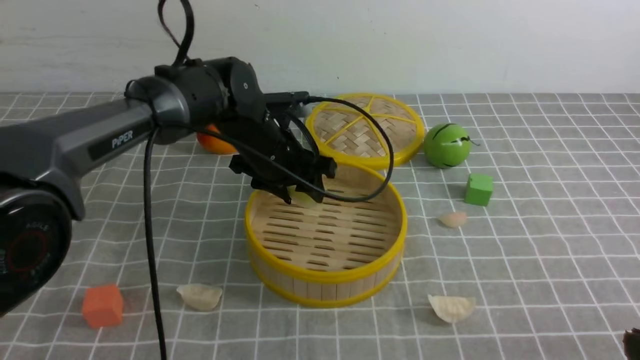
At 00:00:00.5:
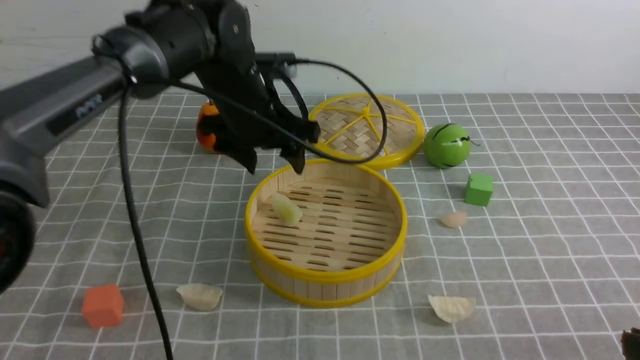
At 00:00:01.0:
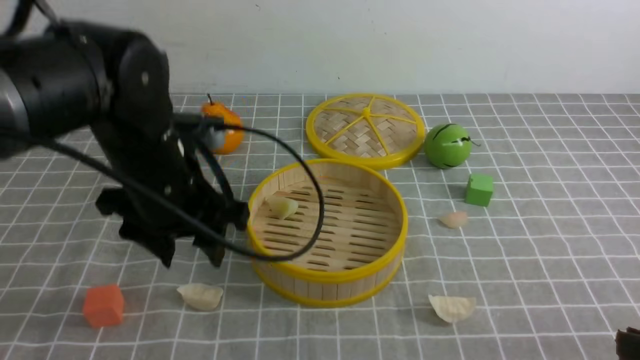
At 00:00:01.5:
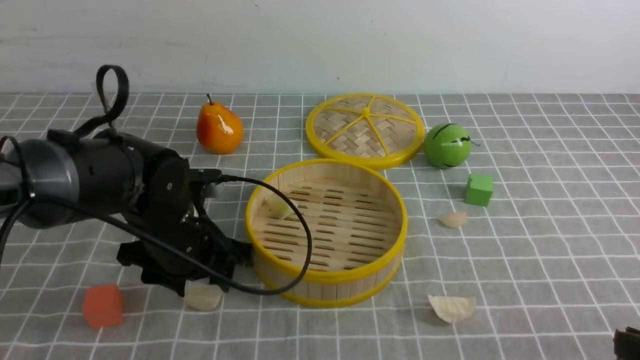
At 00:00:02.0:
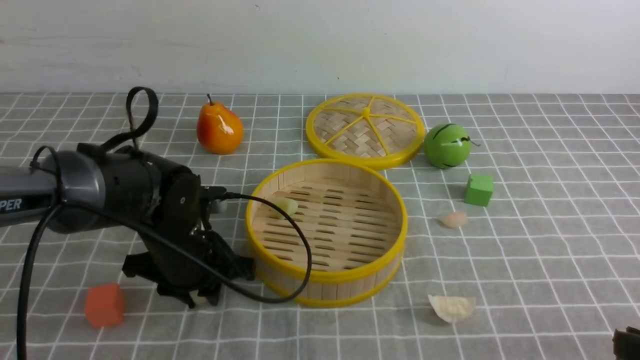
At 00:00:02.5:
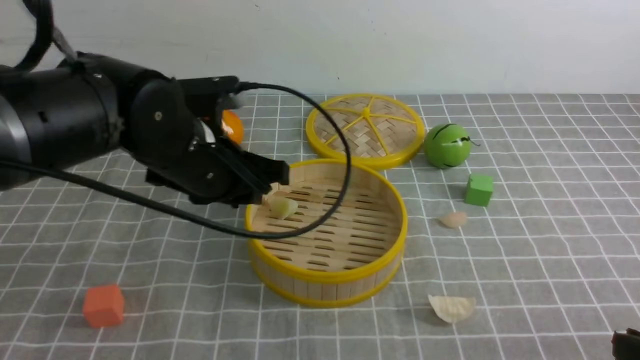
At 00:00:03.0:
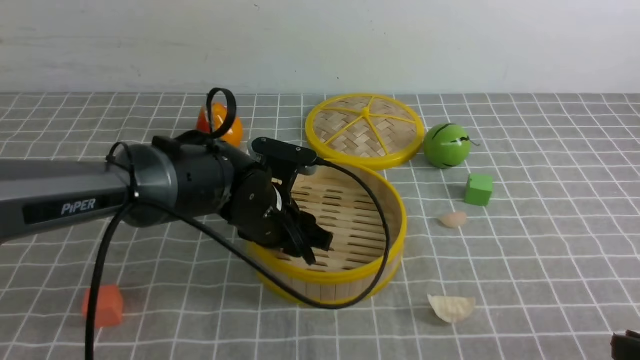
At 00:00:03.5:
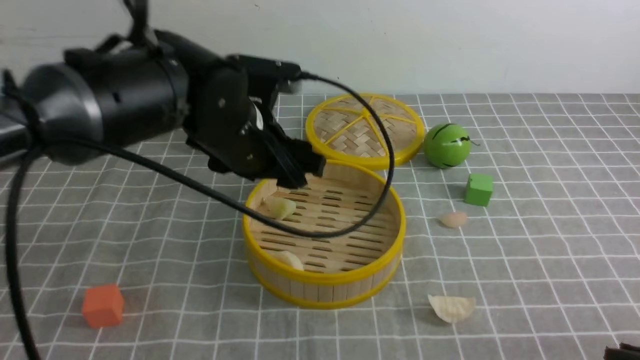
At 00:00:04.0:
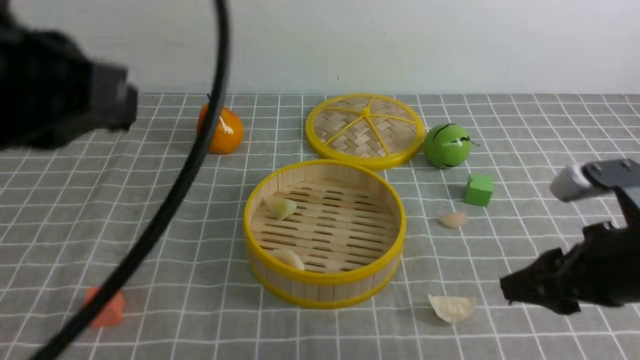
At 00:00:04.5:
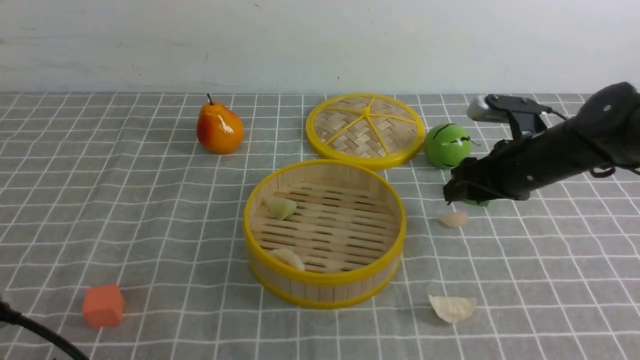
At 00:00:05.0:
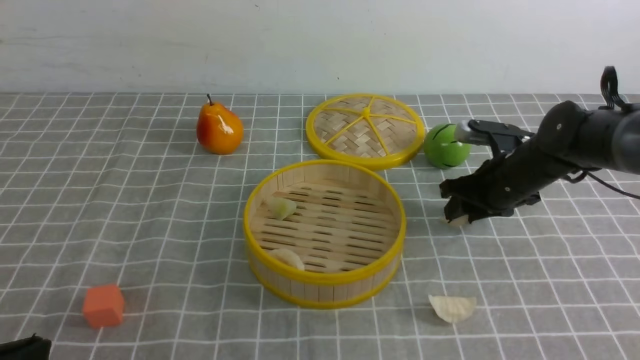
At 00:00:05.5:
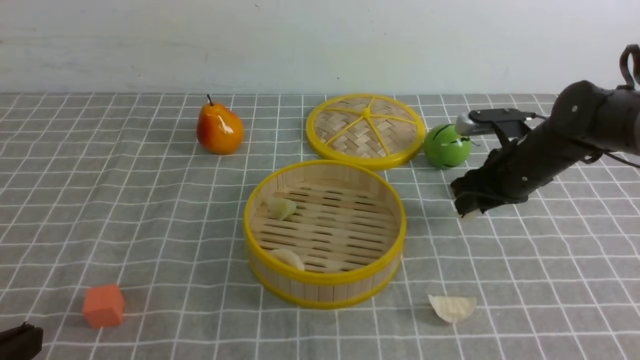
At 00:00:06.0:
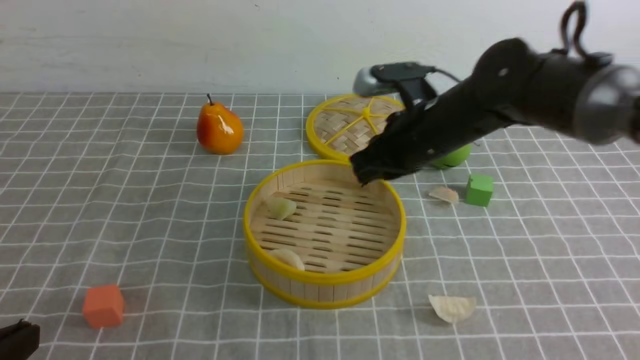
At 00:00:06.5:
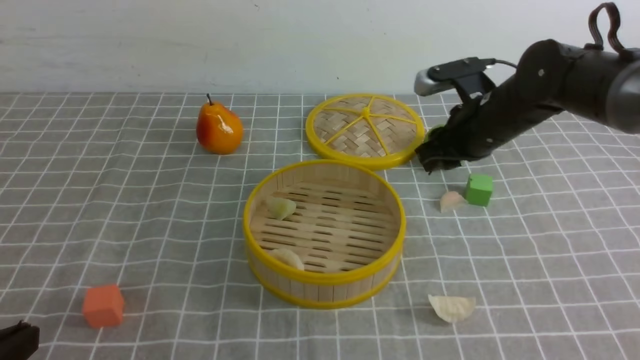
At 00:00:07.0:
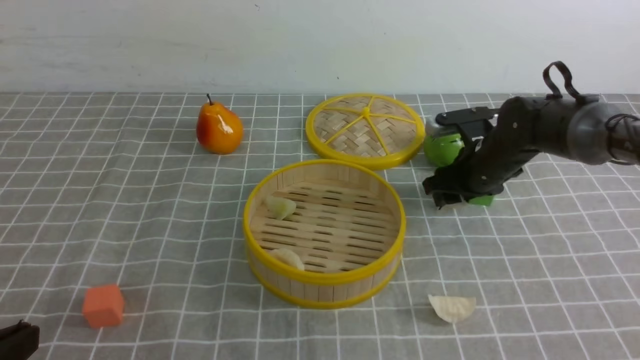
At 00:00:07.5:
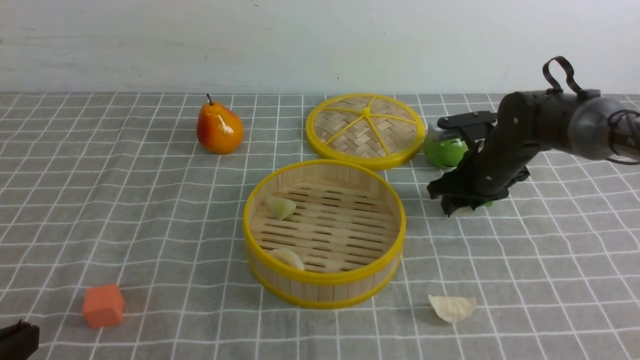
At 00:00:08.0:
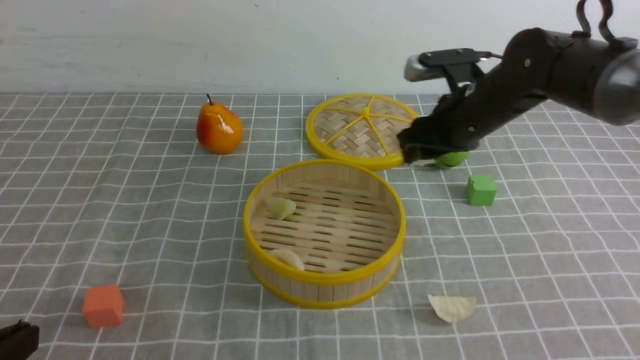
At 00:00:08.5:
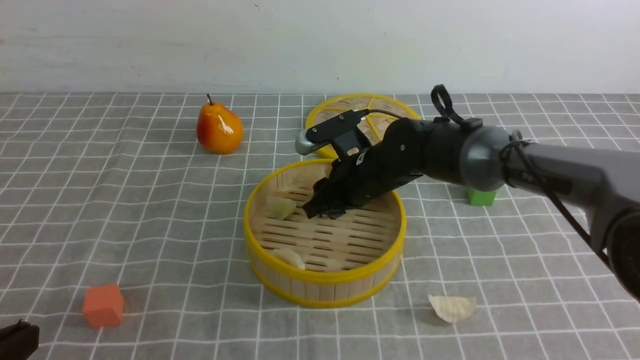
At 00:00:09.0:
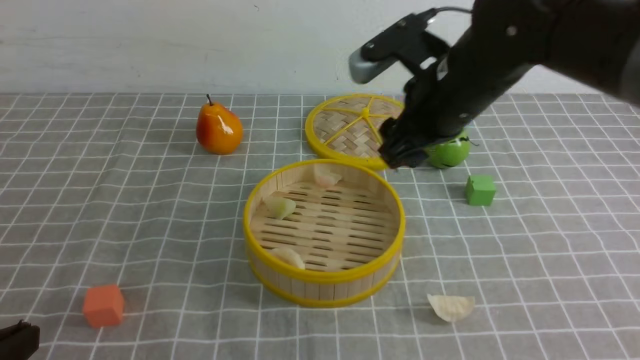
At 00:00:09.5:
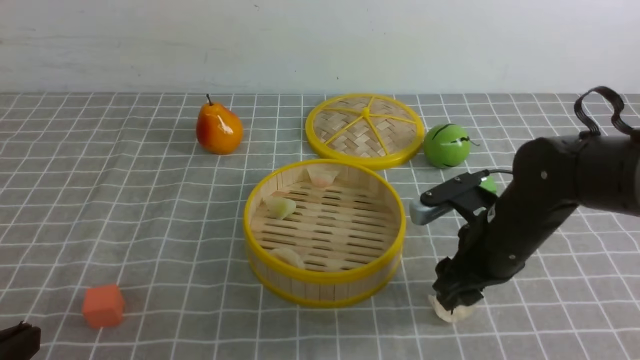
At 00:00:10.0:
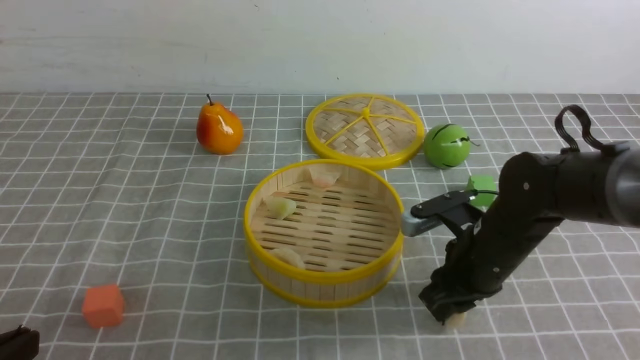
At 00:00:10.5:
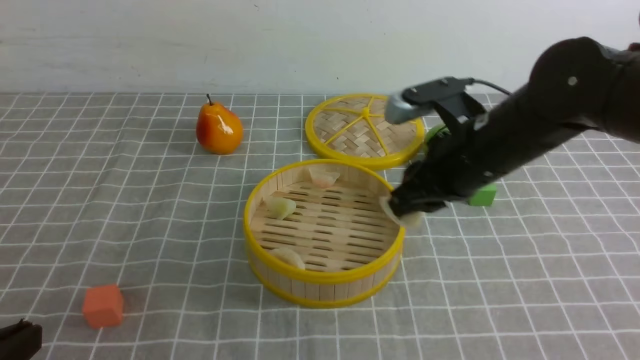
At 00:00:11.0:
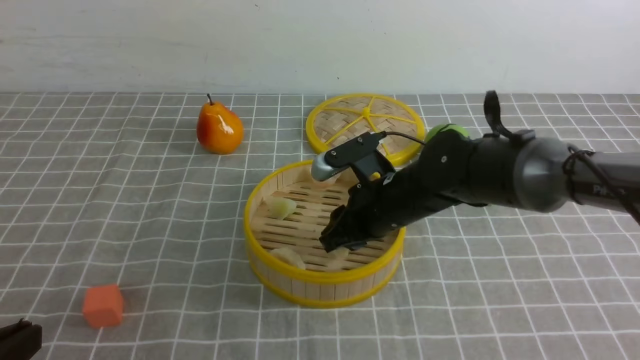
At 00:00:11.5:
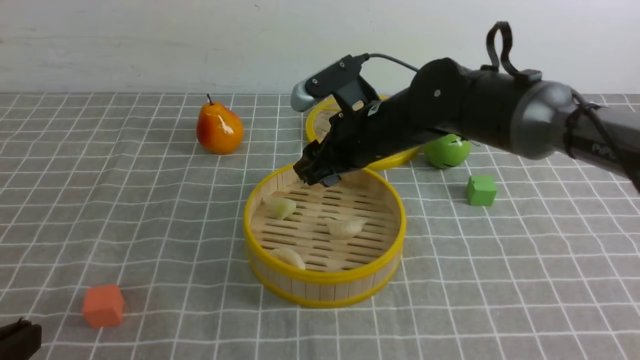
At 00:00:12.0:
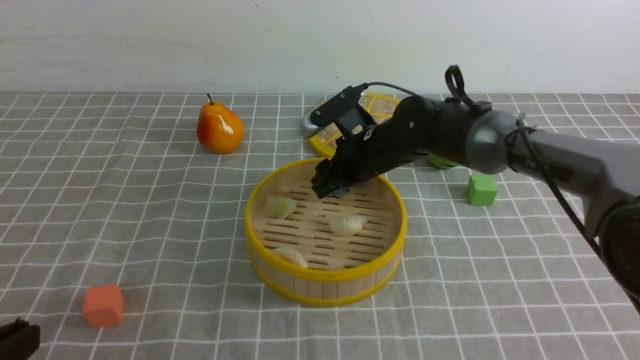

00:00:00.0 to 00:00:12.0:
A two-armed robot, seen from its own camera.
Task of the whole recording: put the dumplings into the steamer on the table with the grey tablecloth.
Step, 00:00:01.0 to 00:00:02.0: use the left arm to grab a dumpling.
Step, 00:00:02.5 to 00:00:03.0: use the left arm to put the dumpling into the steamer.
Step, 00:00:03.5 to 00:00:07.5: use the right arm to grab a dumpling.
Step, 00:00:08.0 to 00:00:08.5: use the right arm to put the dumpling into the steamer.
Step, 00:00:09.0 to 00:00:10.0: use the right arm to grab a dumpling.
Step, 00:00:10.5 to 00:00:11.0: use the right arm to put the dumpling into the steamer.
00:00:00.0 to 00:00:02.0: The left gripper shifts about 15 cm backward and to the left.
00:00:02.0 to 00:00:04.0: The left gripper swings up and down, some 25 cm each way, with 2 reversals, and closes; the right gripper travels forward by about 15 cm, and opens up.
00:00:04.0 to 00:00:06.0: The right gripper moves forward and to the left, about 20 cm, and closes its fingers. The left gripper goes some 20 cm downward, backward and to the left.
00:00:06.0 to 00:00:08.0: The right gripper goes downward and returns, about 10 cm each way, and opens.
00:00:08.0 to 00:00:10.0: The right gripper goes up and down, approximately 10 cm each way, reversing 2 times.
00:00:10.0 to 00:00:12.0: The right gripper heads forward and to the left, covering roughly 15 cm.

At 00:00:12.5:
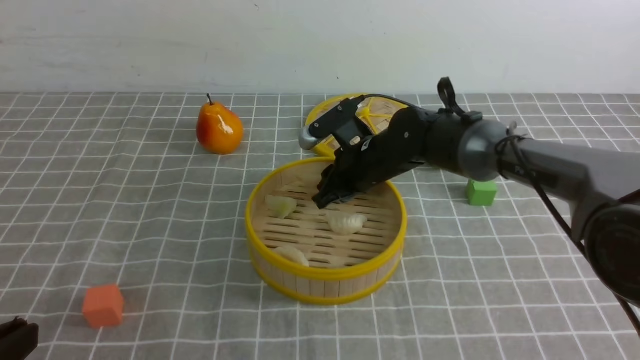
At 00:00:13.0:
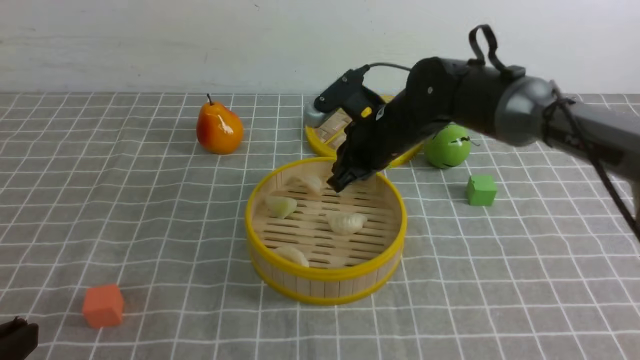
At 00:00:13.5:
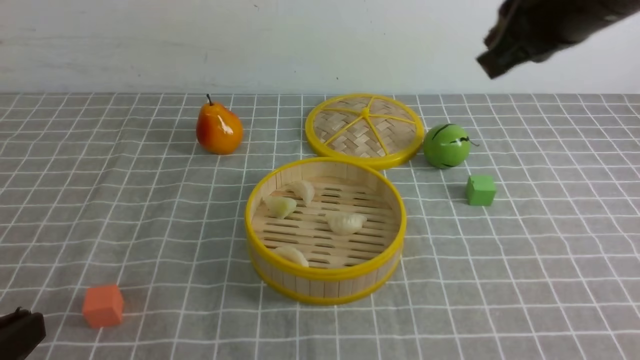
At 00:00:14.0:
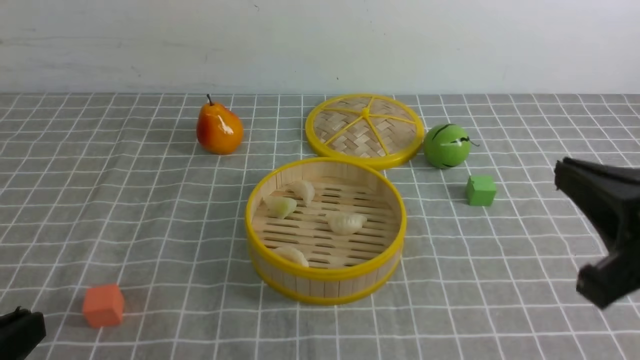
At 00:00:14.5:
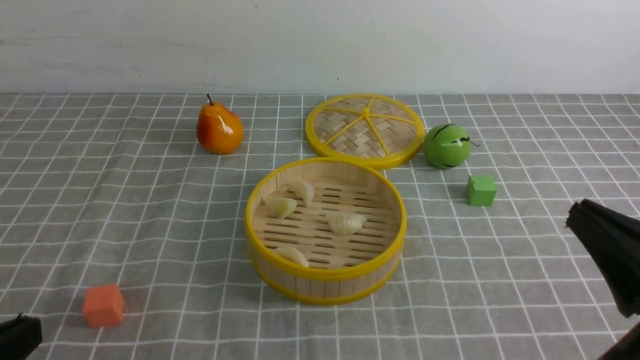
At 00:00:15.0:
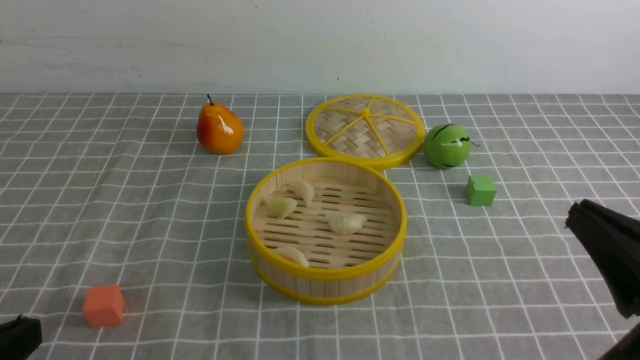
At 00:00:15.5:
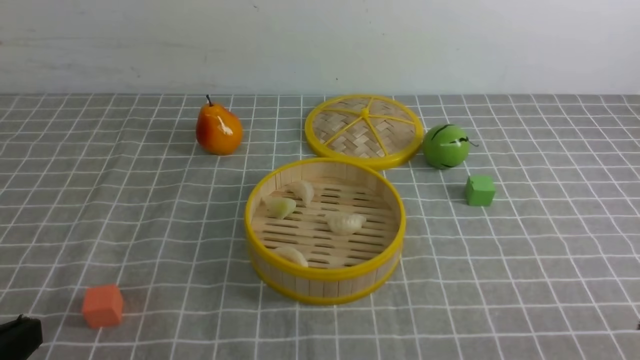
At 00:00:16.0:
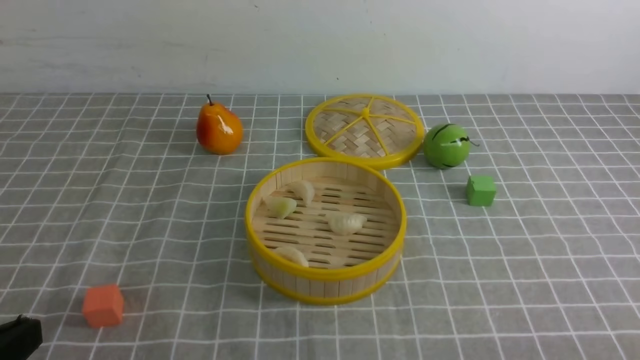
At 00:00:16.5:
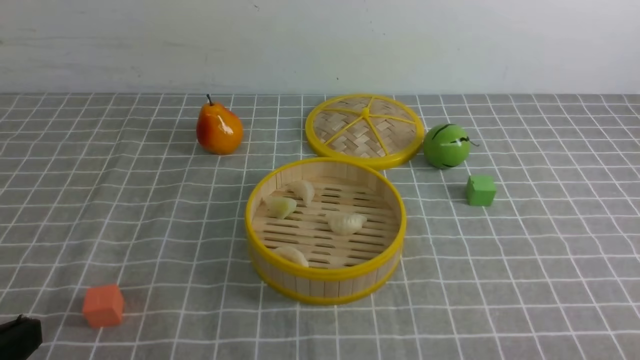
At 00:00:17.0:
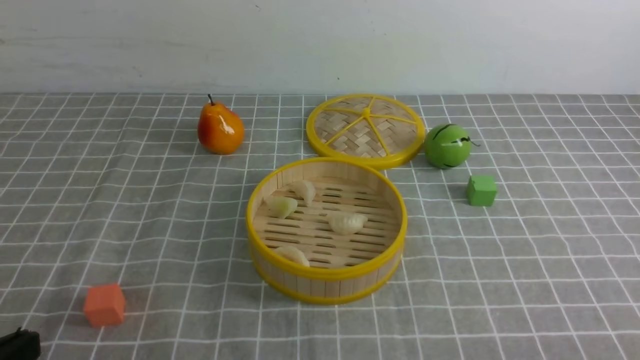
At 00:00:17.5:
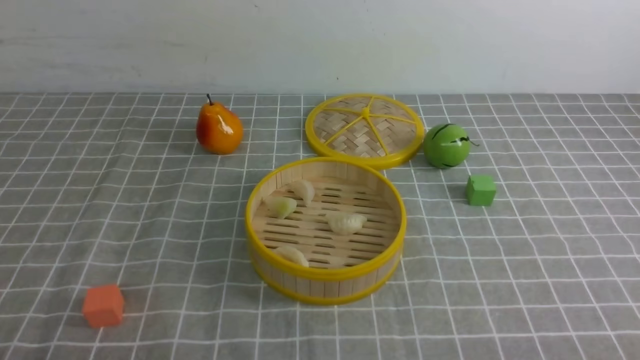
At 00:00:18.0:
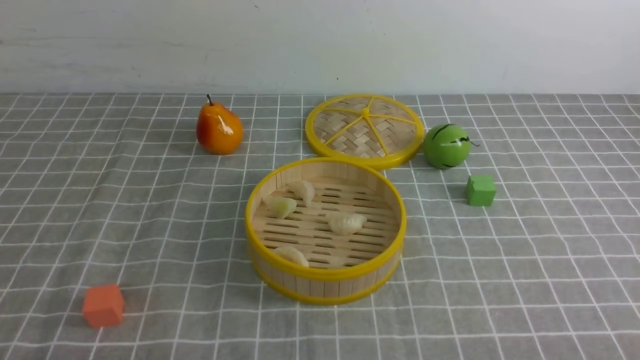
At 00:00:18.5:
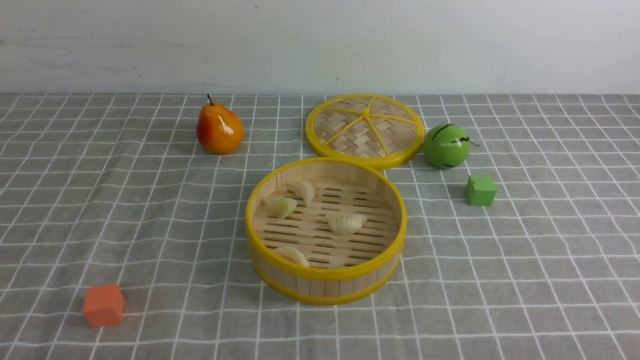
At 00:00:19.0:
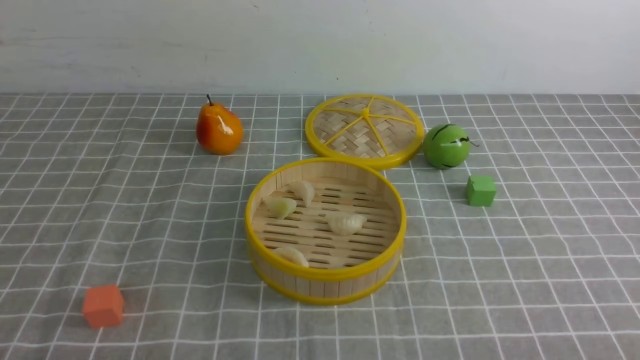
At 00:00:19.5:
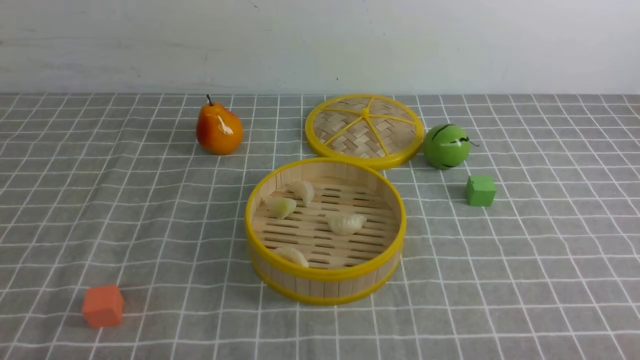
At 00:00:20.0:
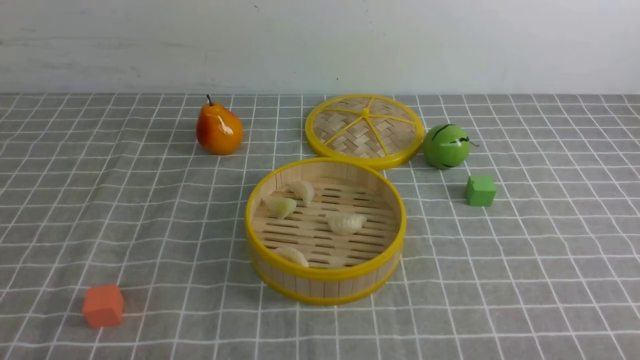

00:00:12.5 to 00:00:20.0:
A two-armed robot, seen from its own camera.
Task of the whole recording: put the dumplings into the steamer on the table with the grey tablecloth.
00:00:12.5 to 00:00:14.5: The right gripper heads backward and to the right, covering some 40 cm.
00:00:14.5 to 00:00:16.5: The right gripper is displaced downward, backward and to the right by about 15 cm.
00:00:16.5 to 00:00:18.0: The left gripper goes roughly 10 cm downward.
00:00:18.0 to 00:00:20.0: Both grippers stay about where they are.
